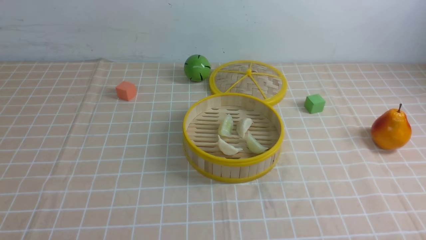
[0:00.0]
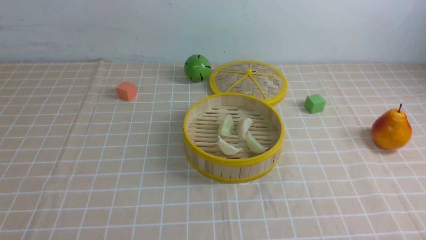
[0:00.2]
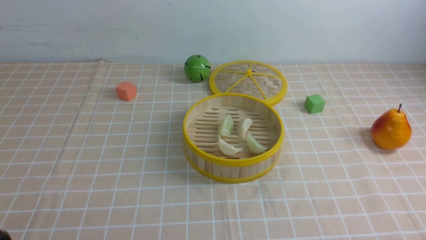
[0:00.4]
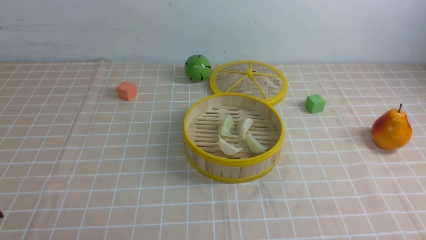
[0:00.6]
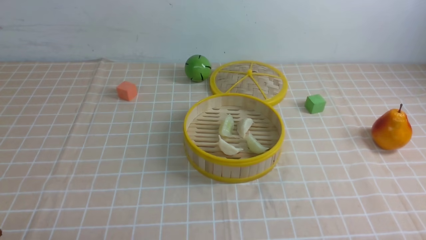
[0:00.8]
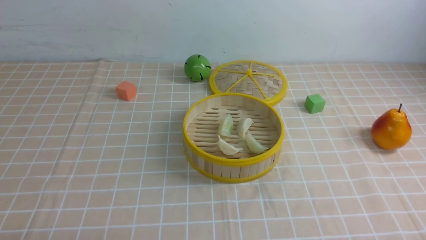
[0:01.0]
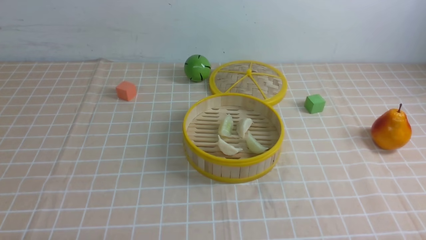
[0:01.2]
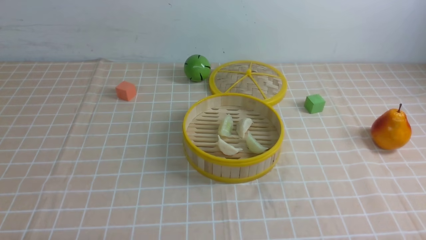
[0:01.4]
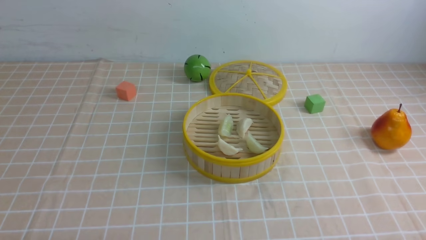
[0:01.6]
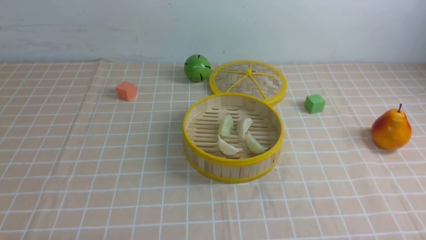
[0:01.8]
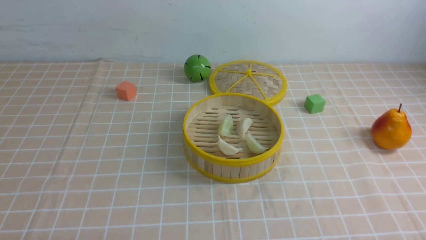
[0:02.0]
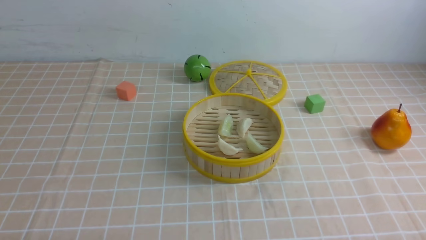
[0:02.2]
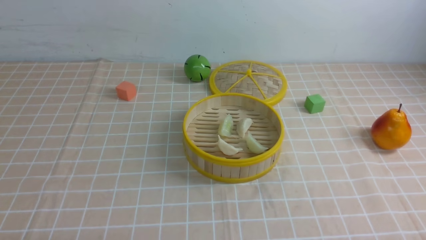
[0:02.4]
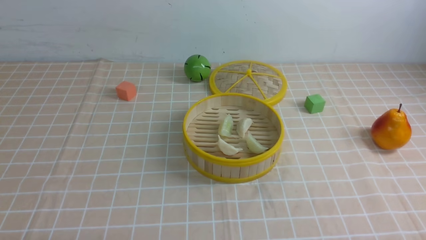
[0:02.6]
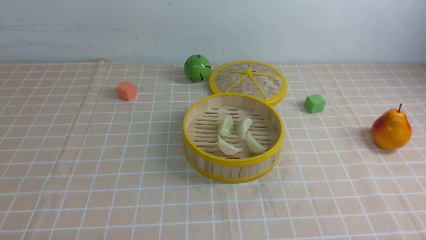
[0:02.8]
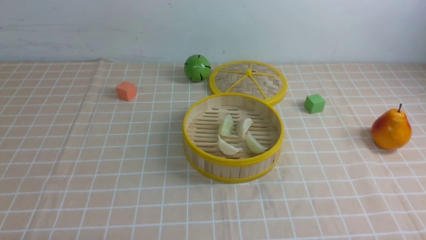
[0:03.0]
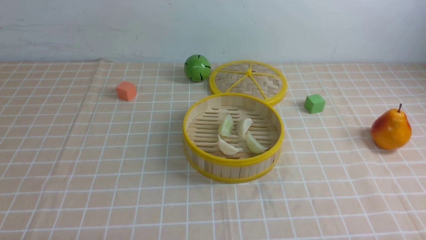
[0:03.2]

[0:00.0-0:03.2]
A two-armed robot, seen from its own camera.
Task of the whole recording: put the dumplings into the steamer on the table with the brown tablecloth.
0:01.6 to 0:03.2: Neither gripper changes place.
